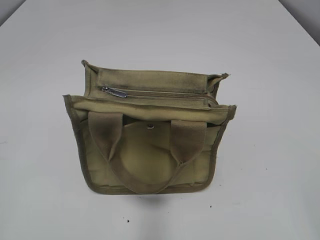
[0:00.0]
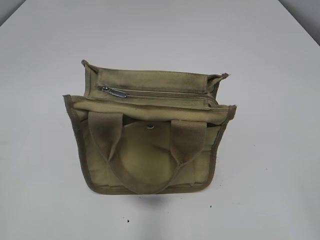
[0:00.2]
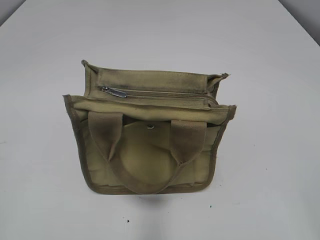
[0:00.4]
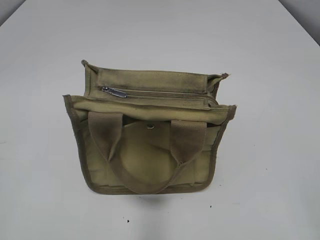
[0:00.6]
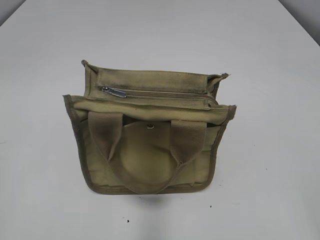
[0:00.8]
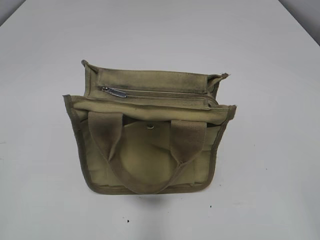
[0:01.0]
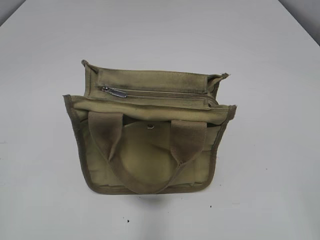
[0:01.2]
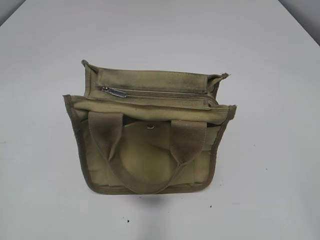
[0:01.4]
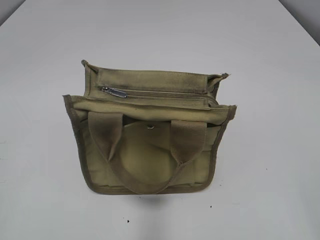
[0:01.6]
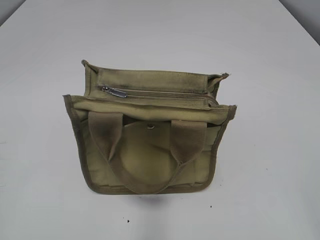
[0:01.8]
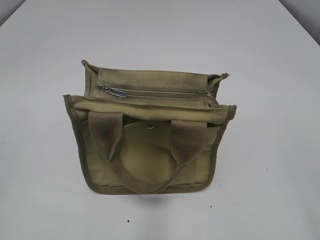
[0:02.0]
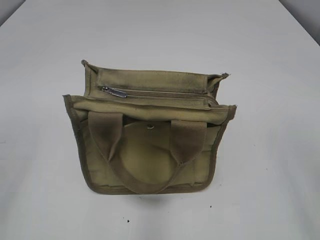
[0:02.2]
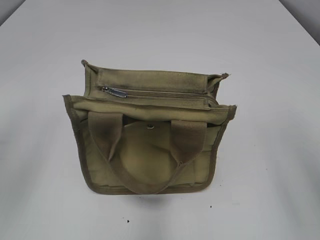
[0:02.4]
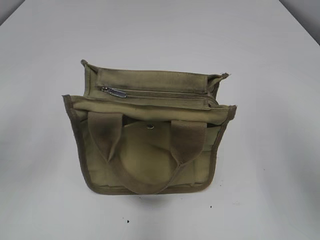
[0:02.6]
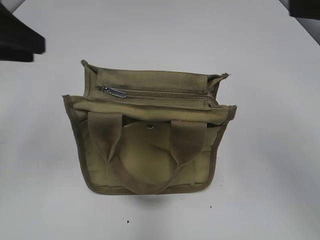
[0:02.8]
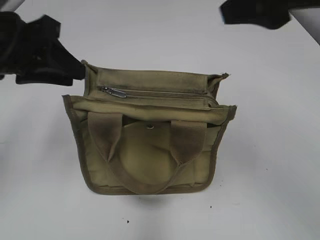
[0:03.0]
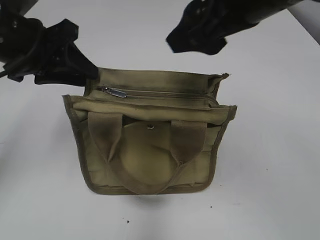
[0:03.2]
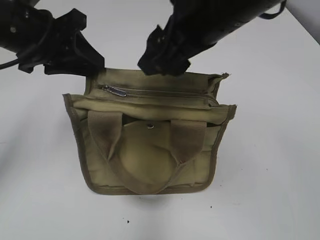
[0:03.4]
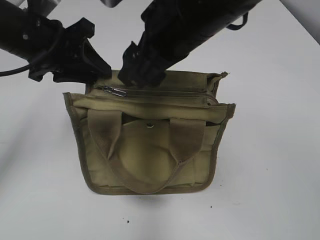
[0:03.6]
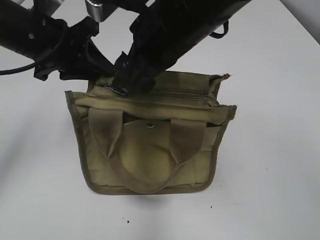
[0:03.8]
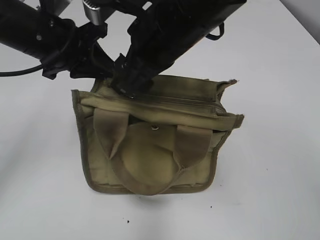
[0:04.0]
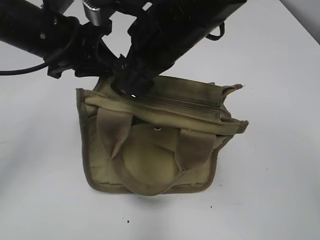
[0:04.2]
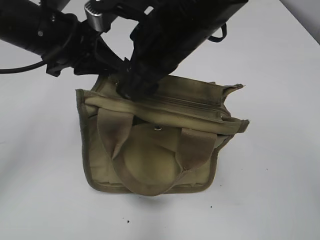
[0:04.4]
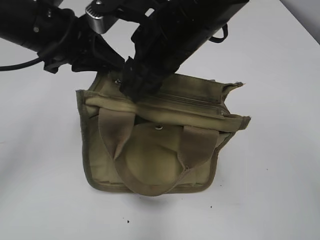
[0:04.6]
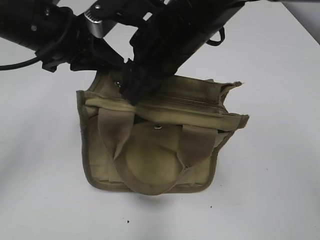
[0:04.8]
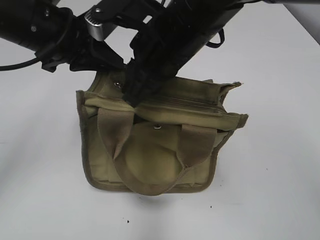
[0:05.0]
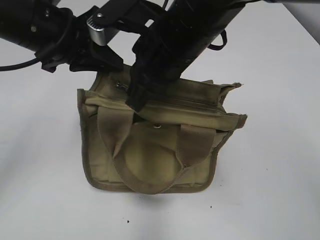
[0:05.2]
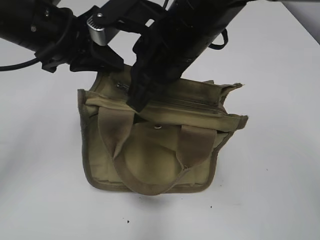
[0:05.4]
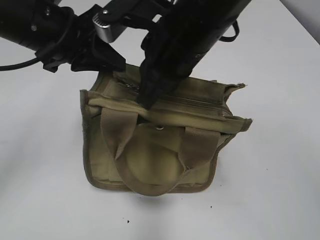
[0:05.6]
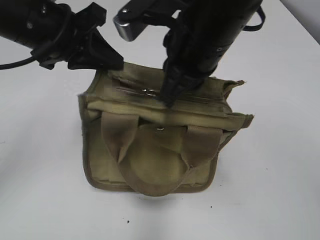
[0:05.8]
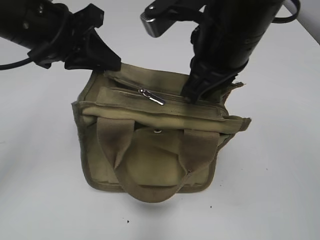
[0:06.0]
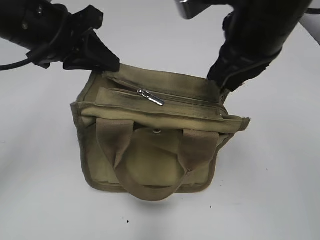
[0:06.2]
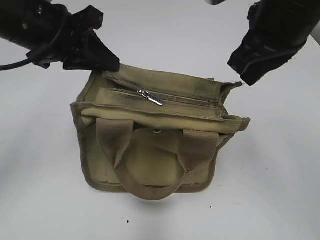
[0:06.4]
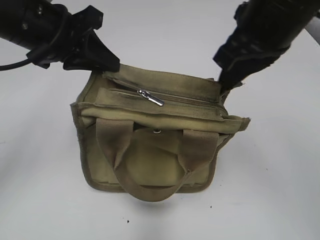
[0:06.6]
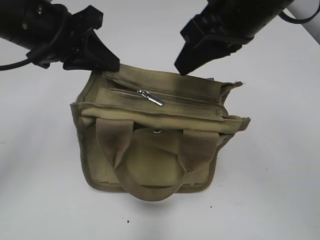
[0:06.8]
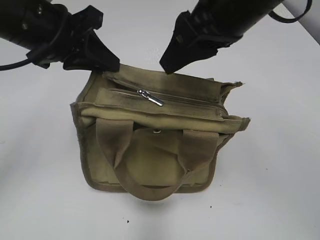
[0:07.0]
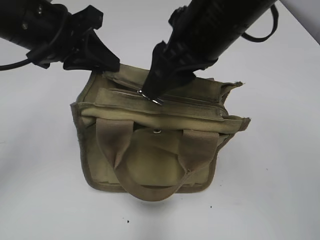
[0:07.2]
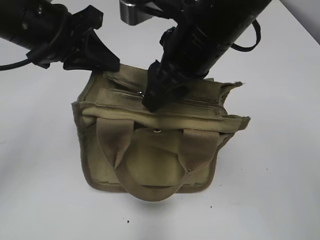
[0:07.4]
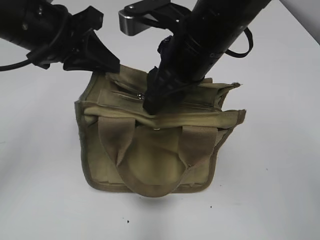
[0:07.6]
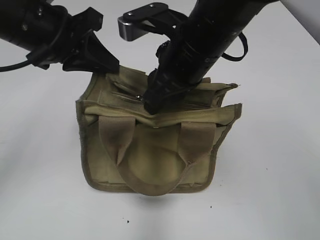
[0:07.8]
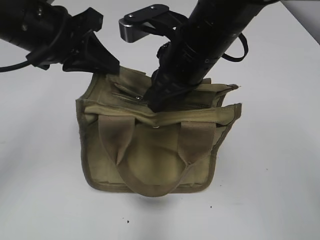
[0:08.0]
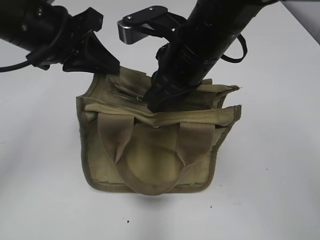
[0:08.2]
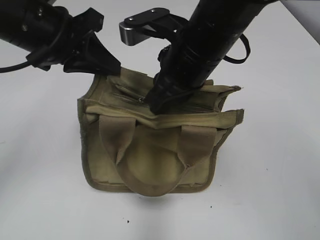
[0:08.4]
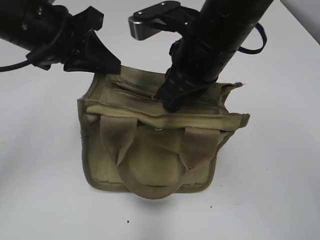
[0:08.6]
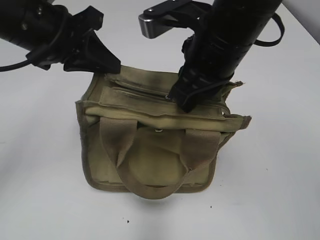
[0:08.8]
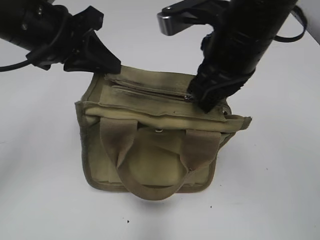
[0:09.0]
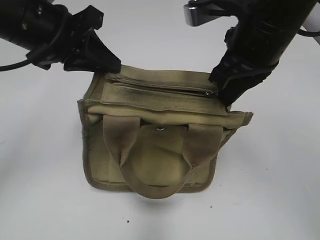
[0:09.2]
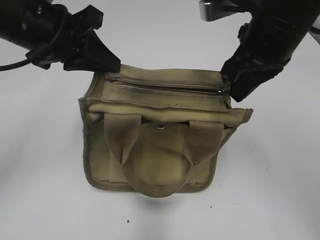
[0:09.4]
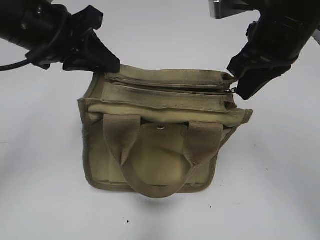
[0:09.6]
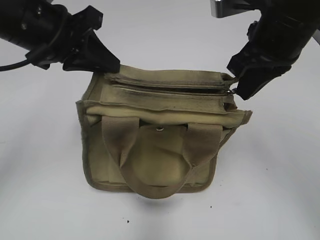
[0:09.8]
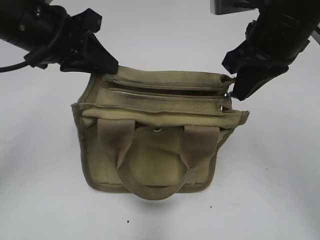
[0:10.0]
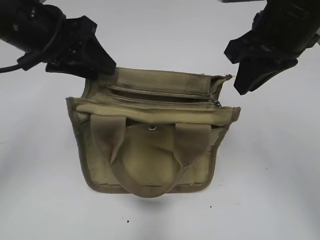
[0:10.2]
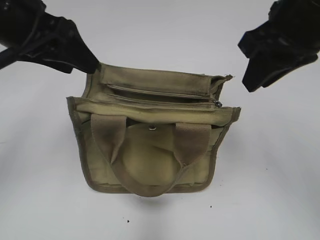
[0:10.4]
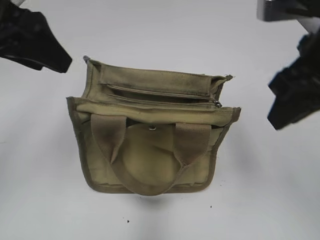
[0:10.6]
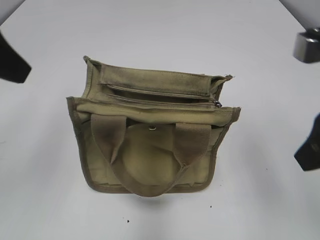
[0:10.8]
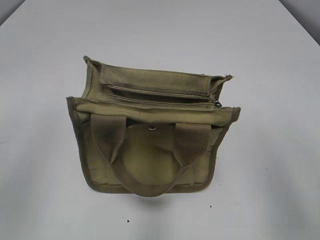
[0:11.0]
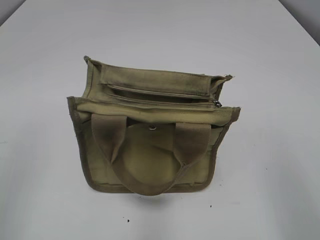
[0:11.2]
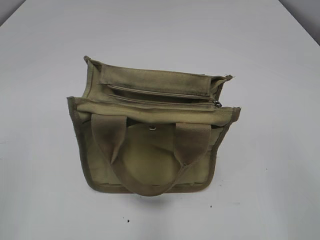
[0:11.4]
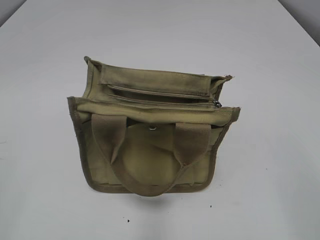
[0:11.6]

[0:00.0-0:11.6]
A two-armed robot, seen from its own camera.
Step, 0:00.0 to 0:10.0: Pull open the zipper with your right hand.
Step, 0:10.2 to 0:10.4: Hold the bag with your left hand.
0:01.4 to 0:02.8: The left gripper is displaced forward by roughly 25 cm. Meanwhile the right gripper is displaced forward and upward by about 20 cm.
0:02.8 to 0:04.4: The left gripper shifts some 15 cm to the right, forward and downward, and closes; the right gripper moves to the left, forward and downward, roughly 25 cm.
0:04.4 to 0:05.8: The right gripper closes its fingers.
0:05.8 to 0:07.2: The right gripper goes to the right and returns, some 10 cm each way, and opens.
0:07.2 to 0:08.8: The right gripper closes.
0:08.8 to 0:10.2: The right gripper heads to the right, covering roughly 10 cm. Meanwhile the left gripper opens its fingers.
0:10.2 to 0:11.6: The left gripper heads backward and to the left, covering some 30 cm, and opens up; the right gripper heads backward, covering some 30 cm.

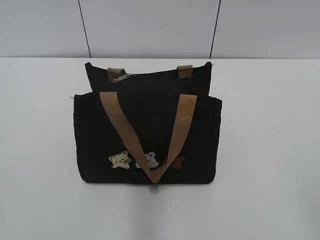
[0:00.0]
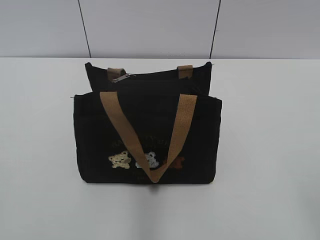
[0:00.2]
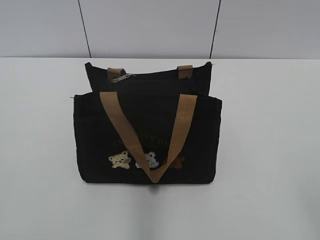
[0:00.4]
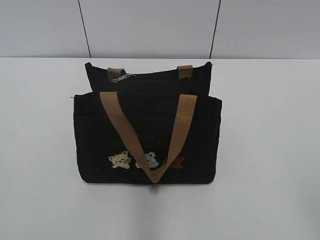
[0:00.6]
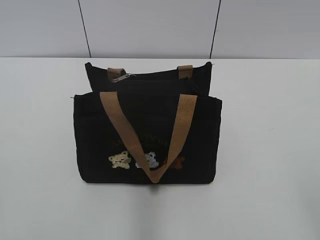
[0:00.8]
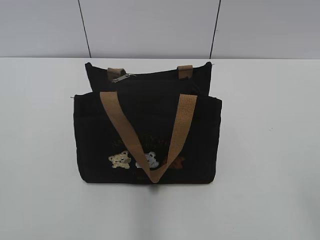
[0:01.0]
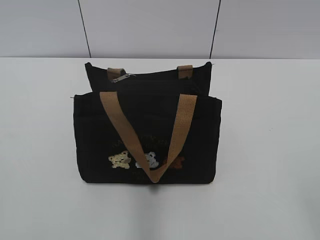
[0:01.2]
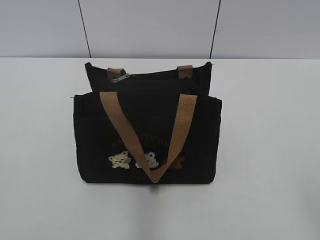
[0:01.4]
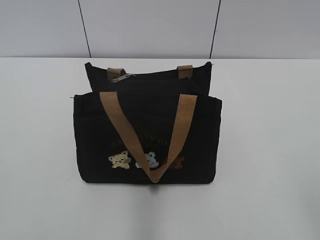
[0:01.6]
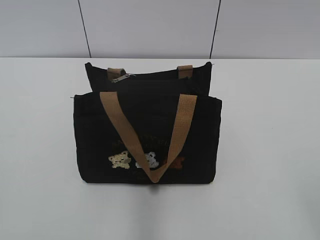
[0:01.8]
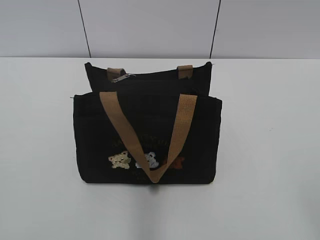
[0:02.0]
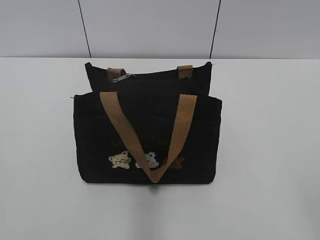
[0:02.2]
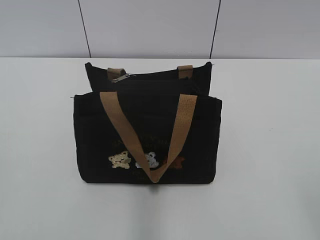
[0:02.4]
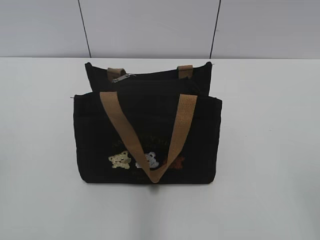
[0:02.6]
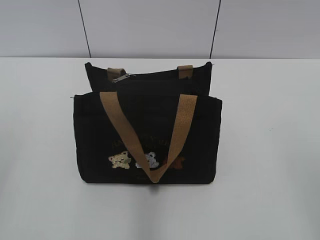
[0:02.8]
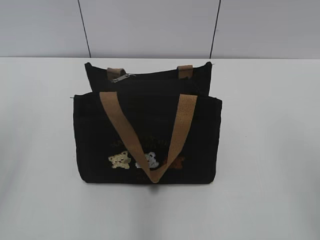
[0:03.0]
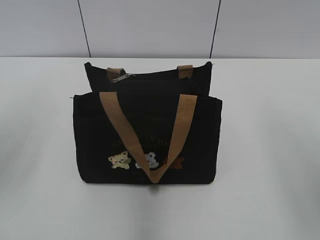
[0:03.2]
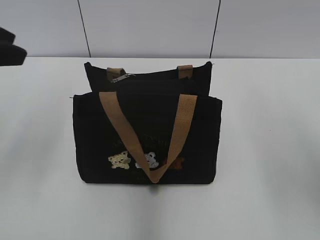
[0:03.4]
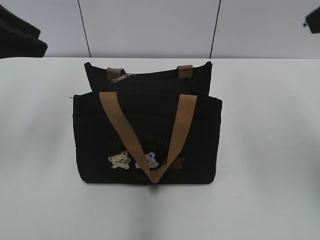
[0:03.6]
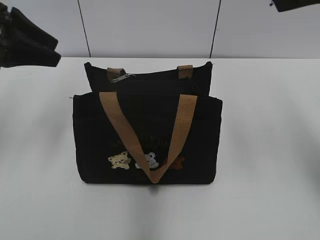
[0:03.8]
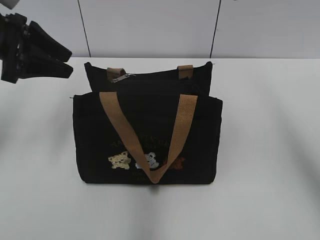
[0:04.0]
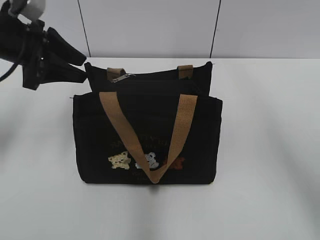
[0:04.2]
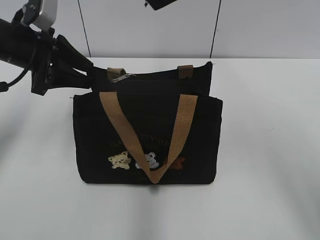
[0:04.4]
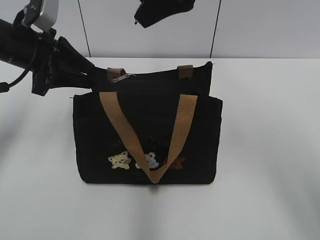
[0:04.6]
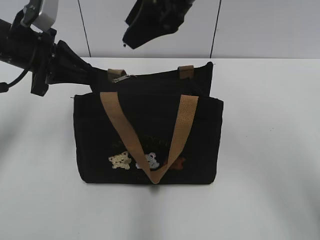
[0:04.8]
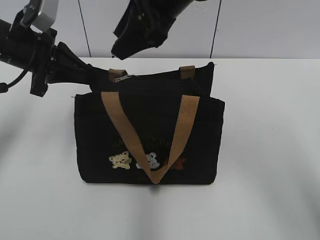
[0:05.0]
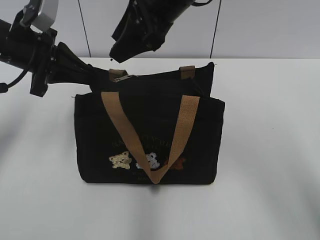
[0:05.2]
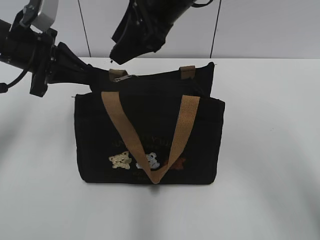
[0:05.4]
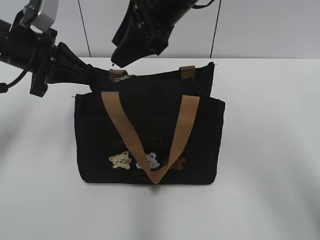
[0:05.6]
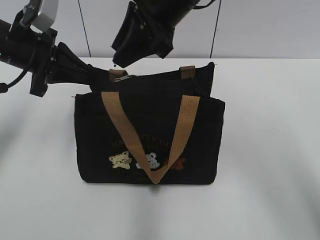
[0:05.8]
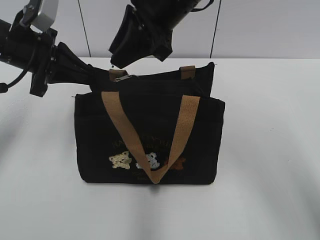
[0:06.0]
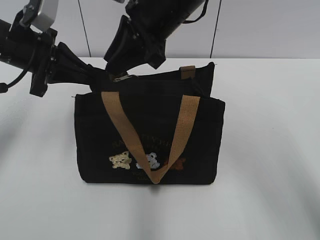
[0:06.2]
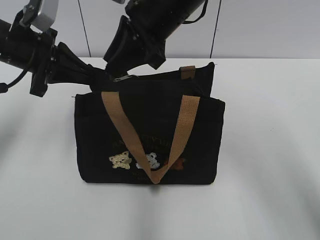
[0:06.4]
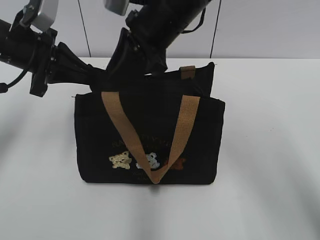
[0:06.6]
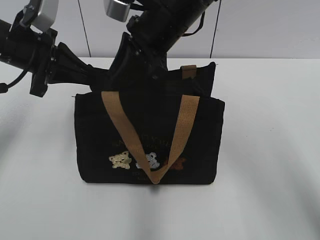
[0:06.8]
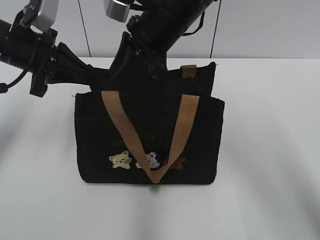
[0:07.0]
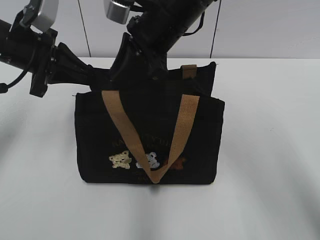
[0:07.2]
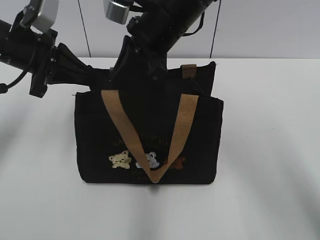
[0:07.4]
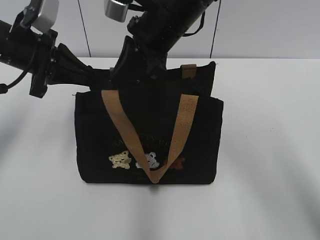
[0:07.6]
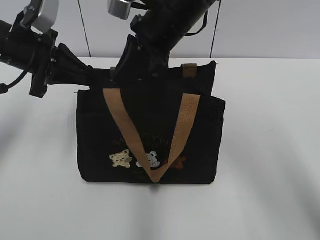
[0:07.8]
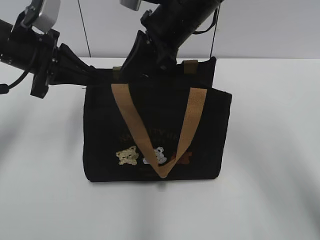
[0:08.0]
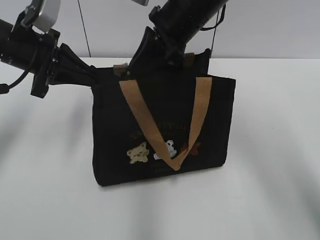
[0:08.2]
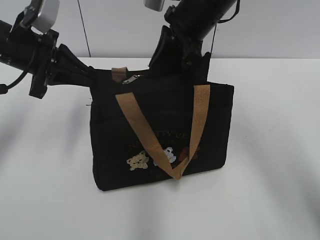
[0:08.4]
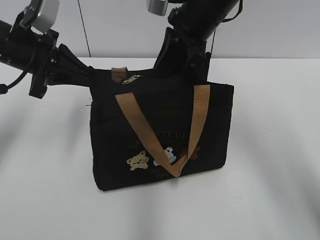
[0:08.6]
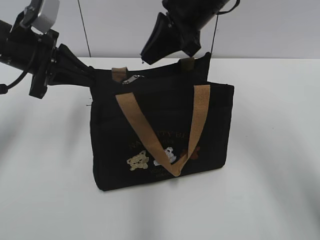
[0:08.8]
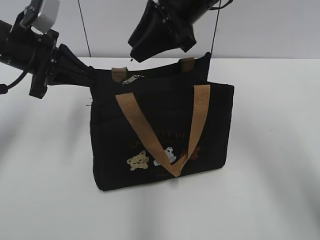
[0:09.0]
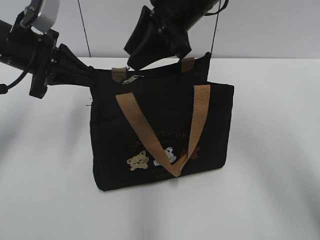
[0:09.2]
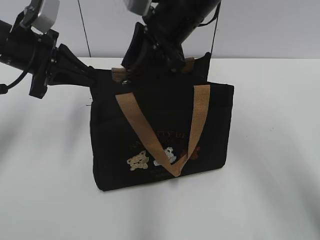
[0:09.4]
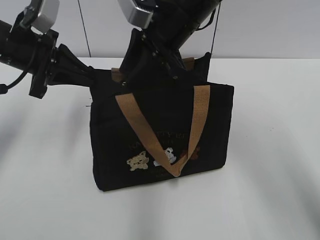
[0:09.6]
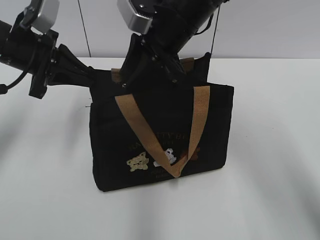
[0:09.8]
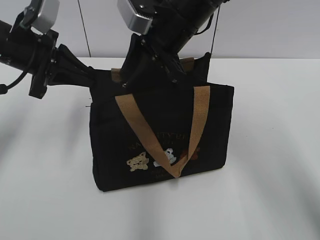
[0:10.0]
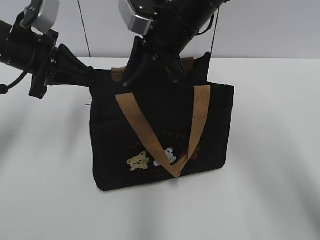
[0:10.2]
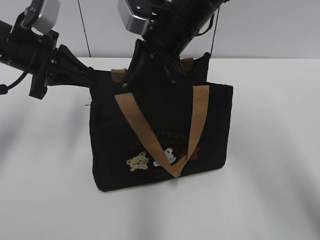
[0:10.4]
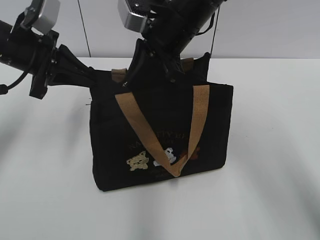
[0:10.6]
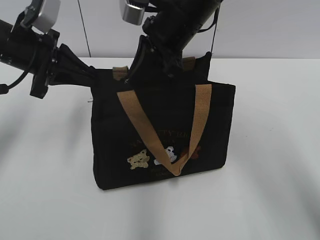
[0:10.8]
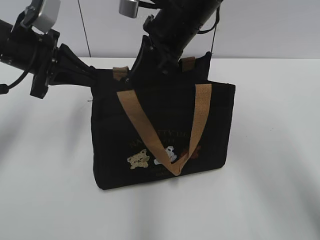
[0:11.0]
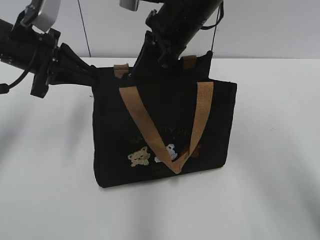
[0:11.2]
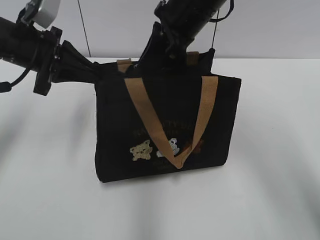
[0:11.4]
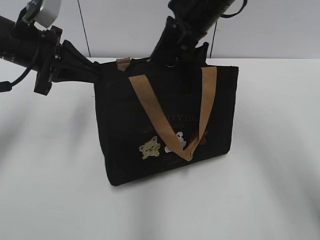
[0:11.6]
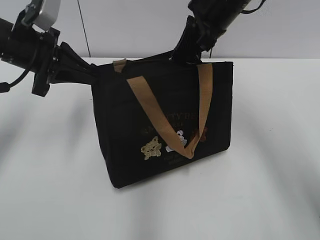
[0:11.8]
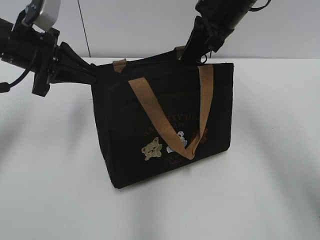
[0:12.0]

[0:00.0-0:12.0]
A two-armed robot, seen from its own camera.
0:03.0 to 0:04.4: The left gripper goes approximately 25 cm forward and downward.
0:04.4 to 0:06.0: The right gripper is displaced downward and to the left by roughly 10 cm, and closes its fingers. The left gripper closes its fingers.
0:06.0 to 0:07.6: The right gripper closes.
0:07.6 to 0:09.0: The right gripper changes place by approximately 5 cm, and opens up.
0:09.0 to 0:10.4: The right gripper moves approximately 5 cm.
0:10.4 to 0:12.0: The right gripper shifts about 10 cm to the right.
